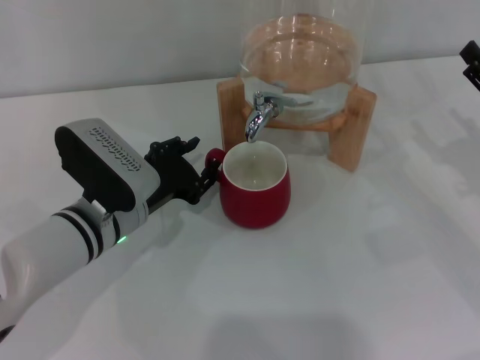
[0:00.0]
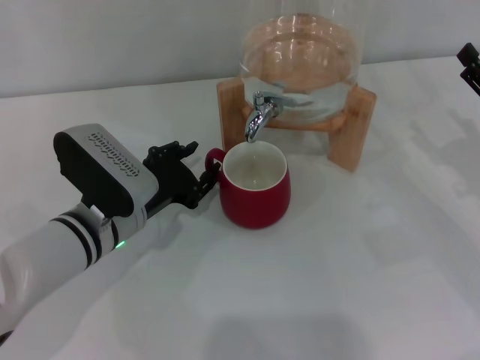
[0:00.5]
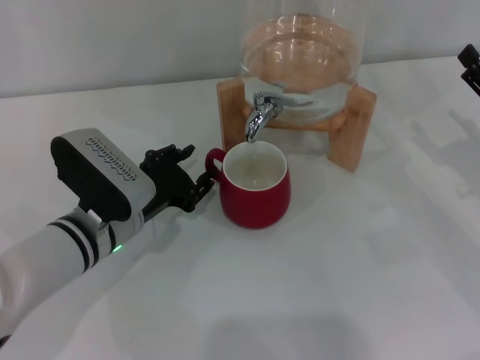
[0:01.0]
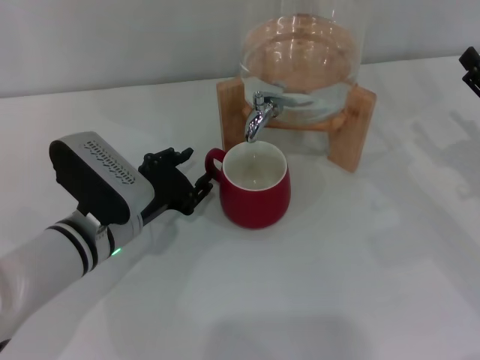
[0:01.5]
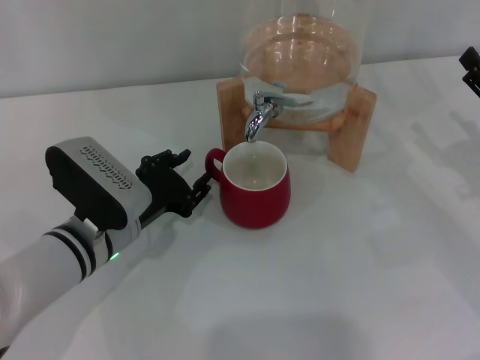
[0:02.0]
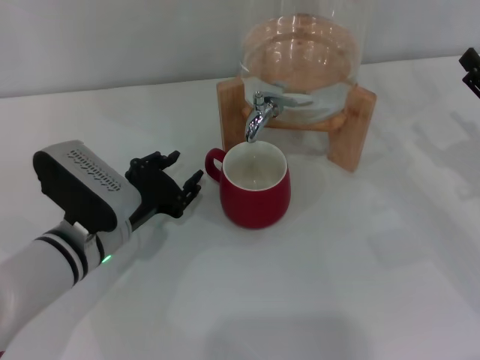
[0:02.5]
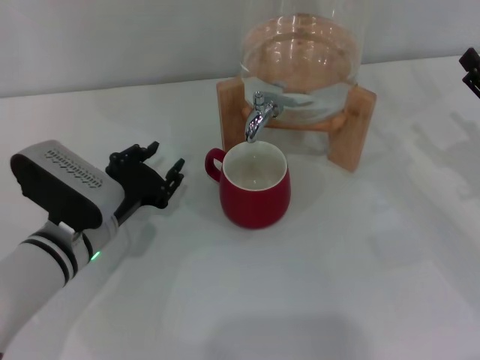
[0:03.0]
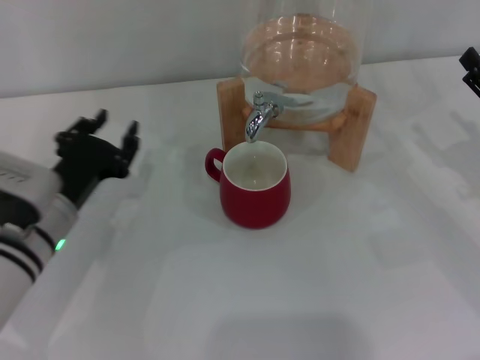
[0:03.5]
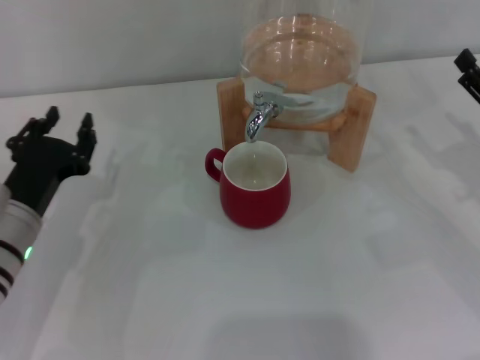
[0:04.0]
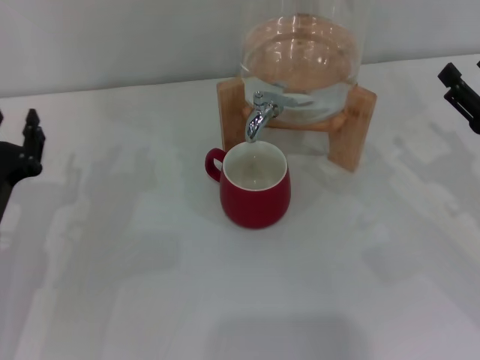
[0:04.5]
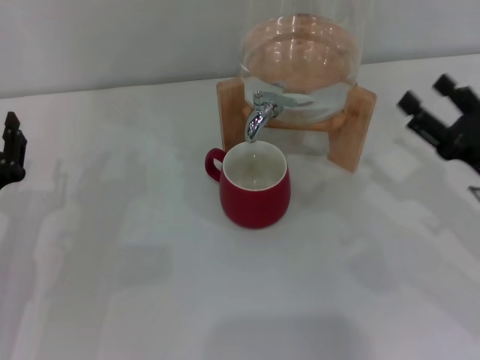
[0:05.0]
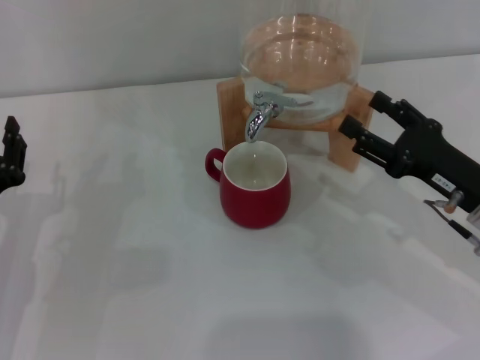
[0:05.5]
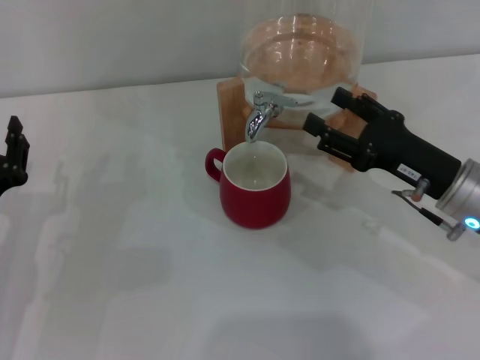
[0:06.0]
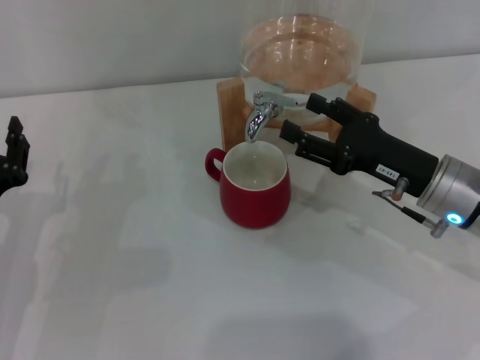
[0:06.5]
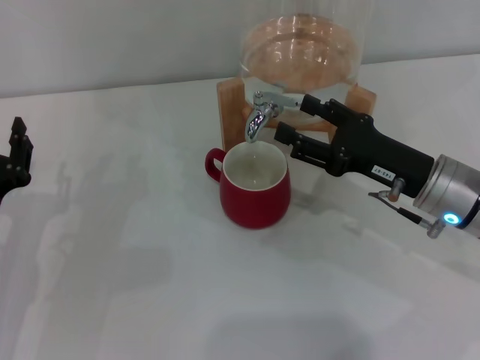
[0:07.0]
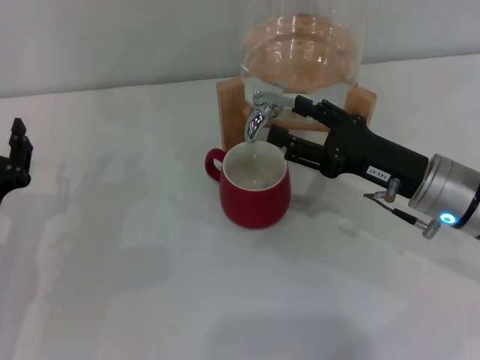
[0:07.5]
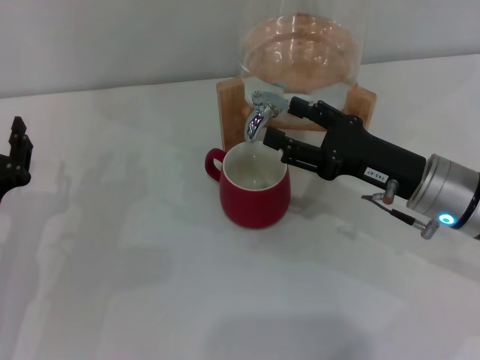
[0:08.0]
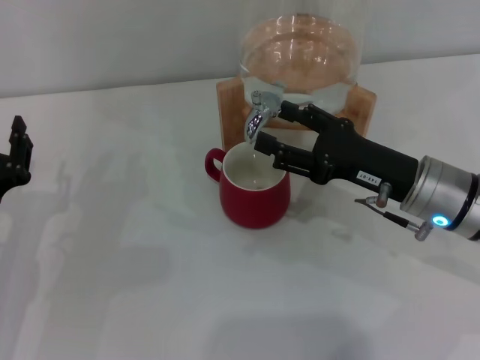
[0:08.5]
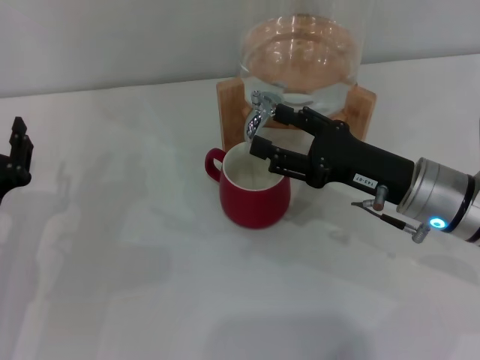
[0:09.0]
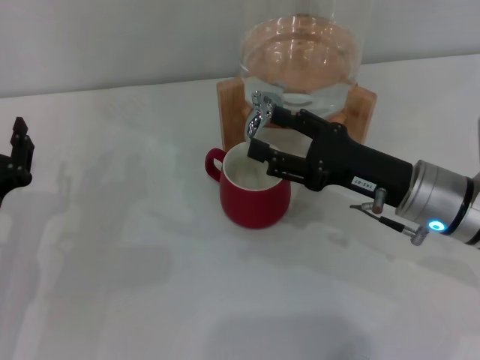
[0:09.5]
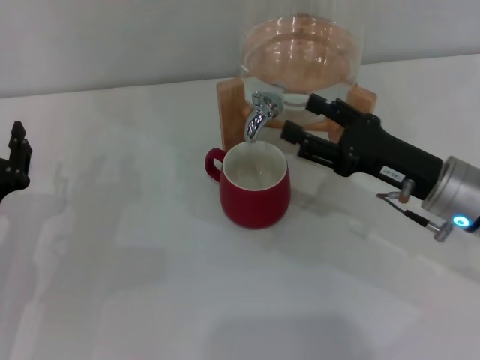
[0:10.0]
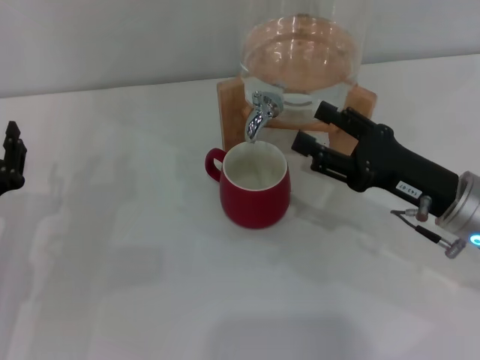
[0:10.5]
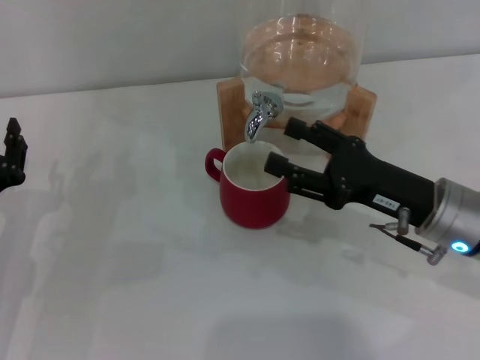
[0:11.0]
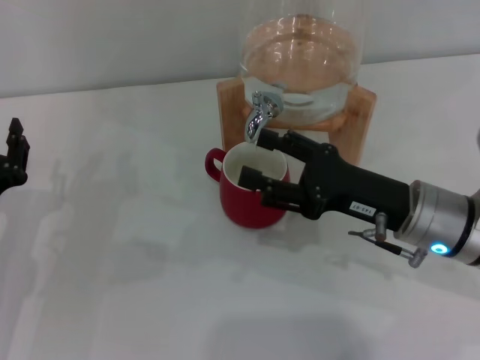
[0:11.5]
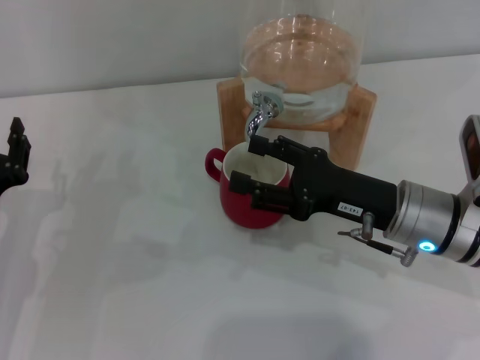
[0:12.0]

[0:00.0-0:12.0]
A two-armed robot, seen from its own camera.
Task of the whole recording: the left gripper pick up the red cup and place it horizontally under the faucet, the right gripper turn on the faucet to fill the cup, and then turn off the faucet.
Step, 0:00.0 to 0:02.5: Move the cup beneath the water dispenser nozzle with the left gripper.
Step, 0:03.0 to 0:10.0: Open the dispenser valve and fill the cup with water with the right gripper.
0:00.0 to 0:02.0: There are only small adjustments of the grippers.
0:02.0 to 0:04.0: The left gripper heads to the left, covering about 10 cm.
0:04.0 to 0:06.0: The right gripper moves to the left, roughly 10 cm.
0:06.0 to 0:08.0: The grippers make only small movements.
0:08.0 to 0:10.0: Neither gripper changes place.
0:10.0 to 0:12.0: The grippers move only a little.

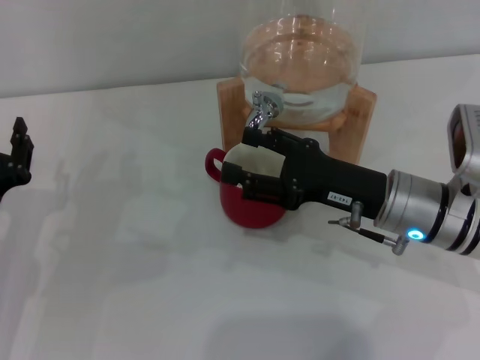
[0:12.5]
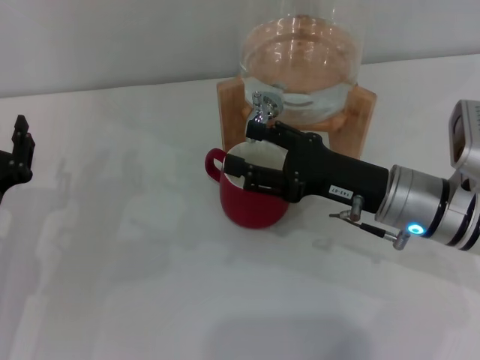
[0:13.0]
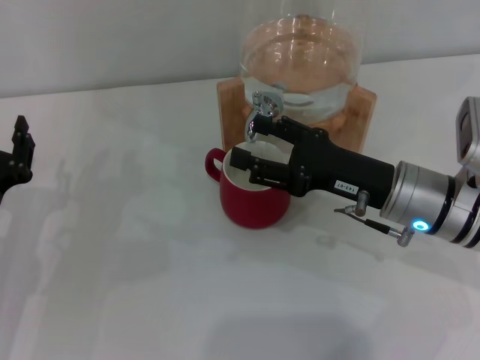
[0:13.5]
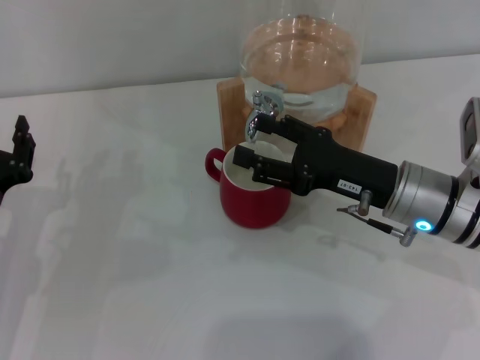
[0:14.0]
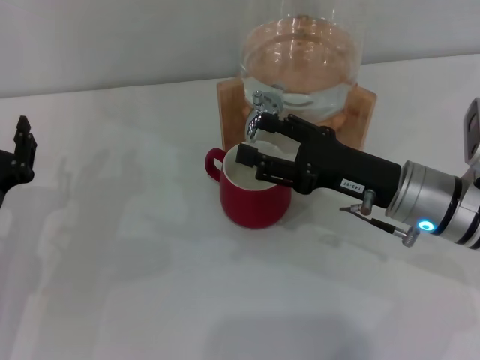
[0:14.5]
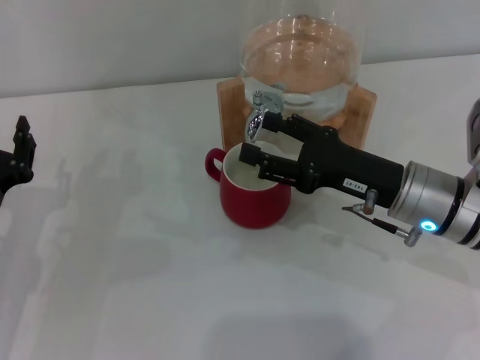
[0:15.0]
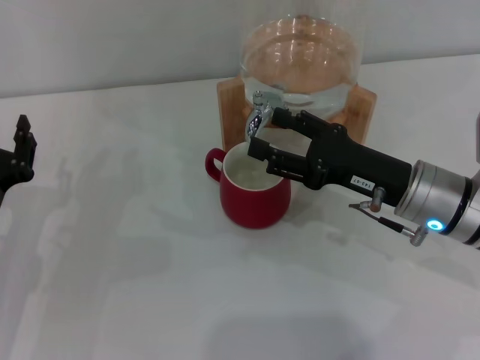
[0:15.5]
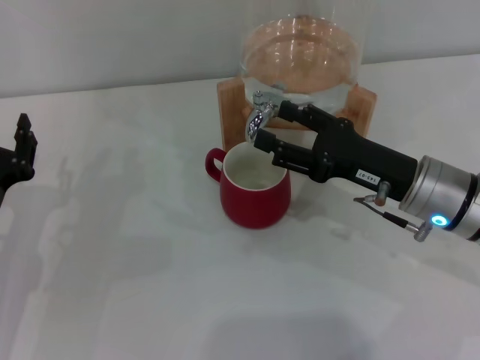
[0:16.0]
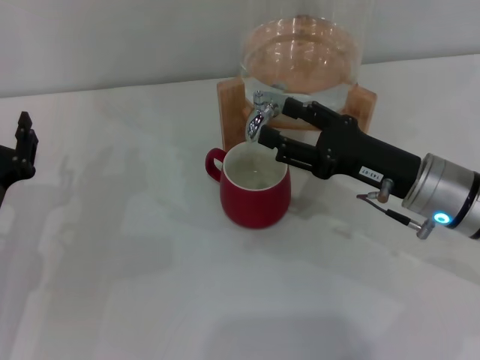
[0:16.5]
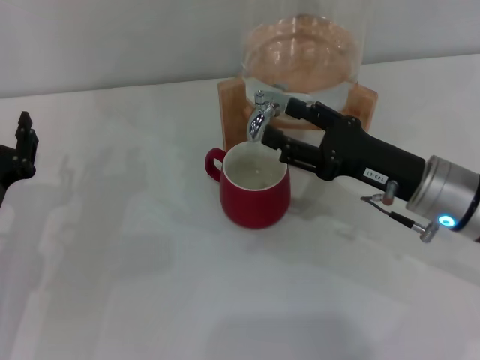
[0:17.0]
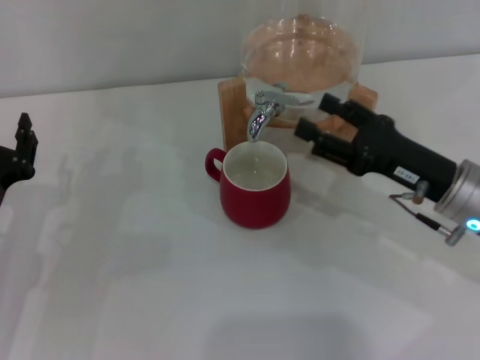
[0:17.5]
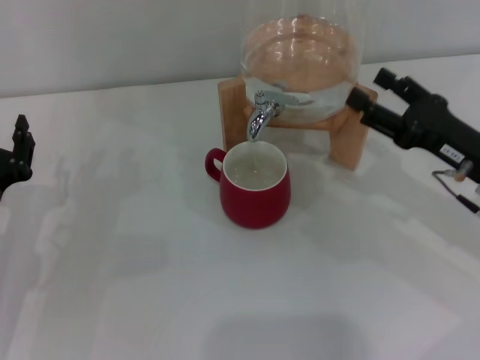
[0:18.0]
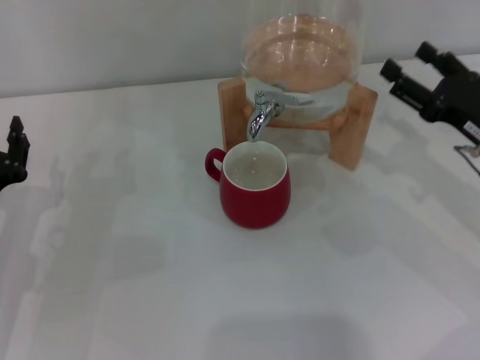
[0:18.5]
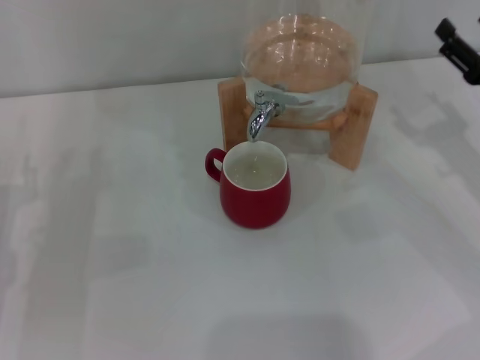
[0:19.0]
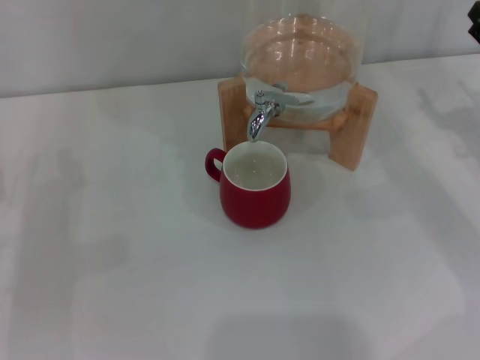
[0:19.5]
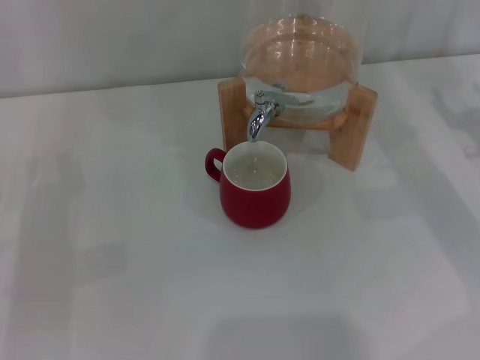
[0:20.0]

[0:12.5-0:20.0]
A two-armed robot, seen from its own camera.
Task of the whole recording: the left gripper pick up the red cup and place it horizontally under the faucet, the right gripper turn on the faucet to fill the cup, and then turn off the faucet.
Step, 0:12.5 to 0:17.0: Close the dispenser valve with the right gripper.
0:12.5 to 0:14.5: Neither gripper changes place.
0:14.5 to 0:16.5: There are only small adjustments of the grippers.
0:16.5 to 0:18.0: The right gripper moves to the right, approximately 5 cm.
0:18.0 to 0:20.0: The right gripper travels to the right by some 10 cm.
